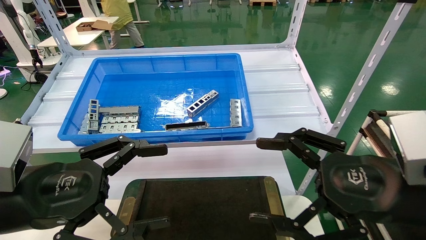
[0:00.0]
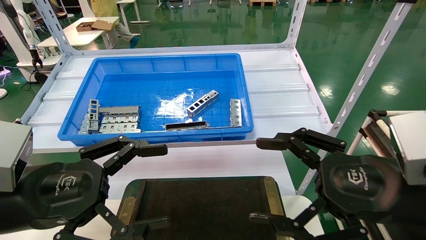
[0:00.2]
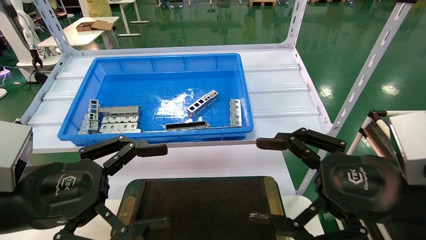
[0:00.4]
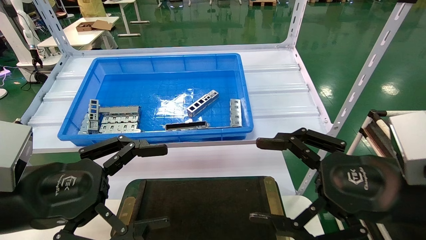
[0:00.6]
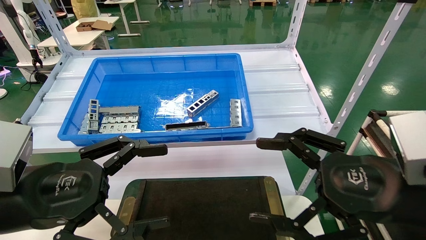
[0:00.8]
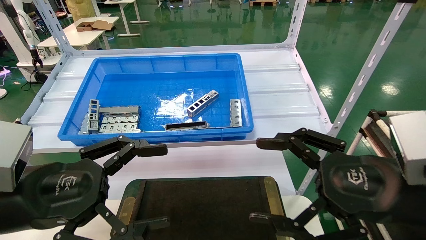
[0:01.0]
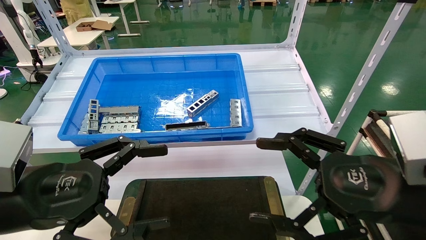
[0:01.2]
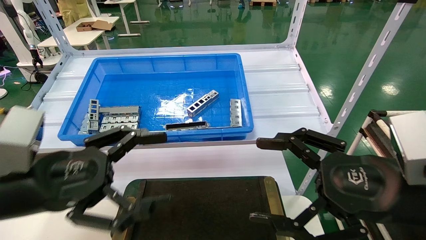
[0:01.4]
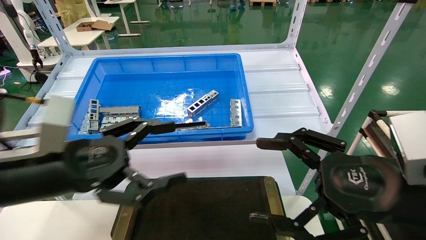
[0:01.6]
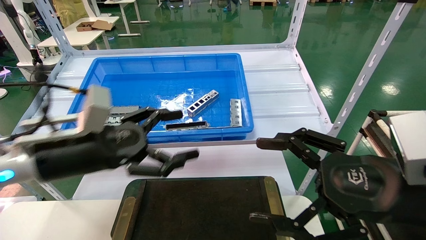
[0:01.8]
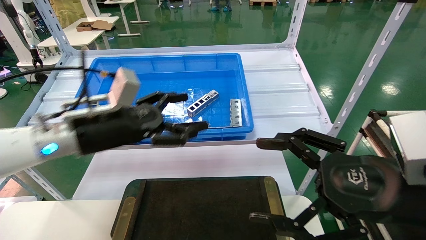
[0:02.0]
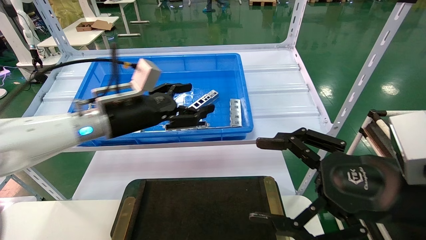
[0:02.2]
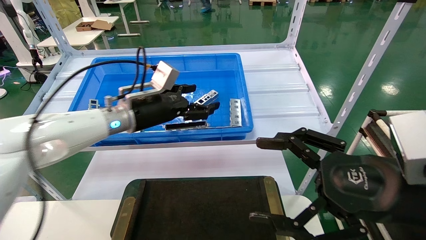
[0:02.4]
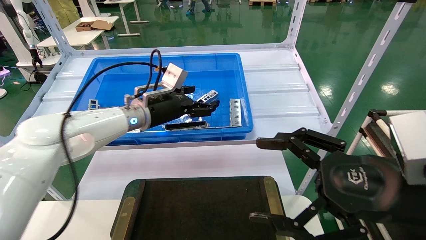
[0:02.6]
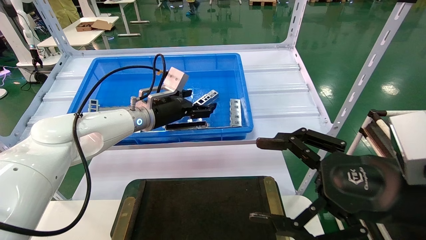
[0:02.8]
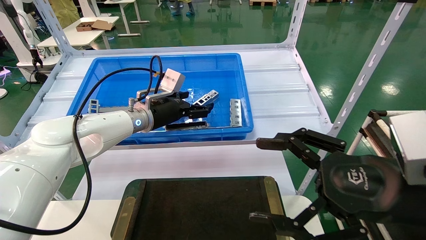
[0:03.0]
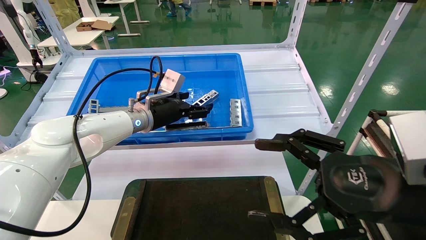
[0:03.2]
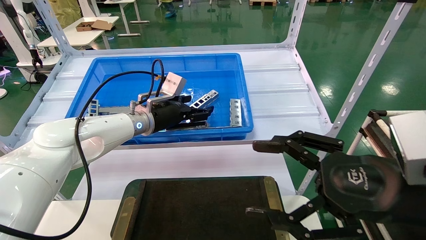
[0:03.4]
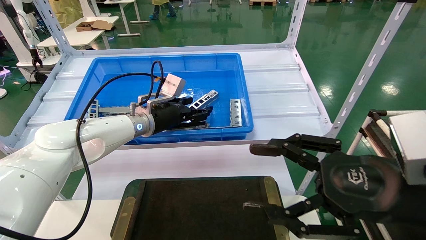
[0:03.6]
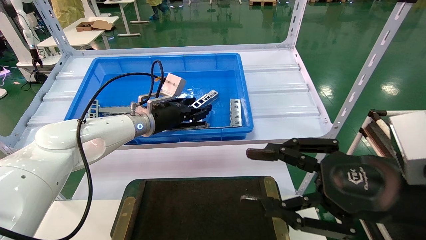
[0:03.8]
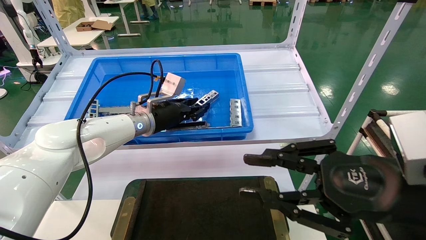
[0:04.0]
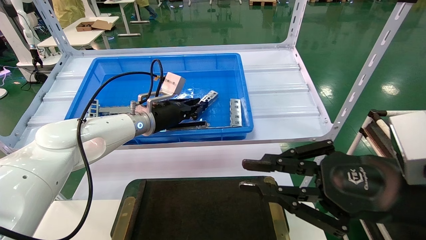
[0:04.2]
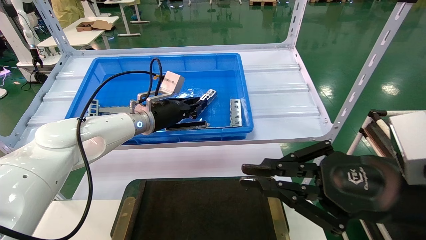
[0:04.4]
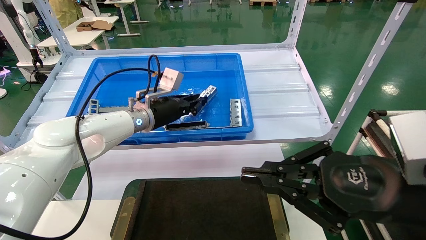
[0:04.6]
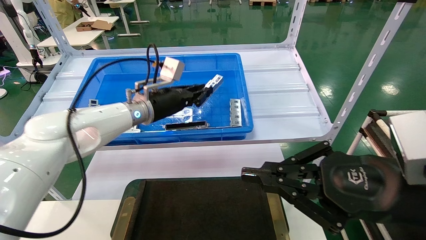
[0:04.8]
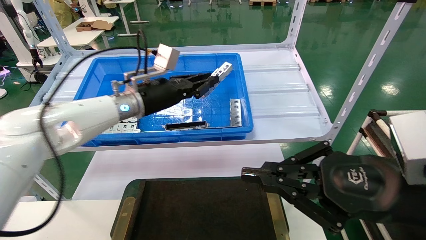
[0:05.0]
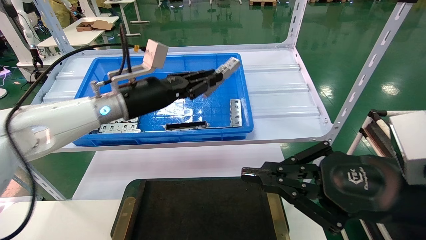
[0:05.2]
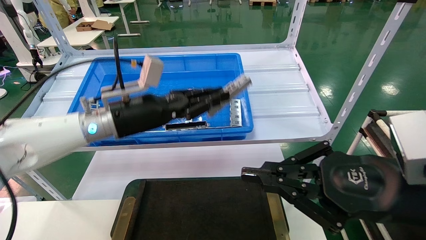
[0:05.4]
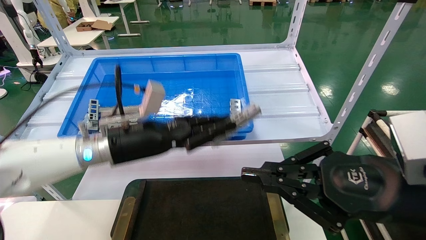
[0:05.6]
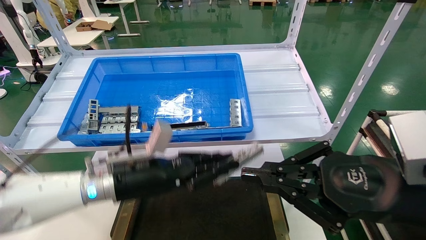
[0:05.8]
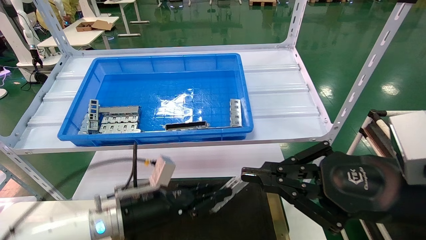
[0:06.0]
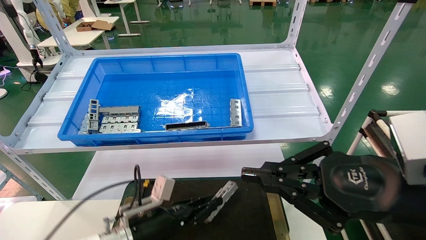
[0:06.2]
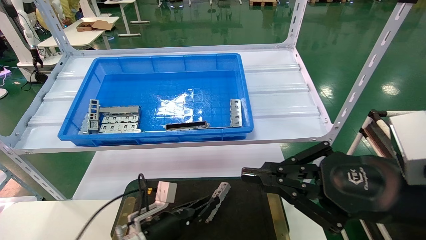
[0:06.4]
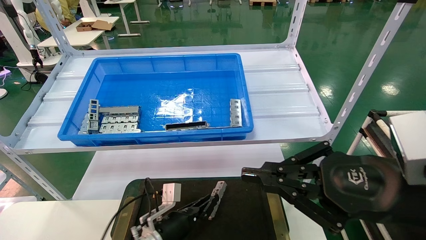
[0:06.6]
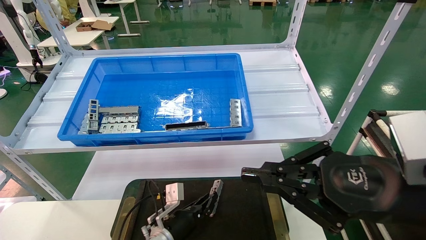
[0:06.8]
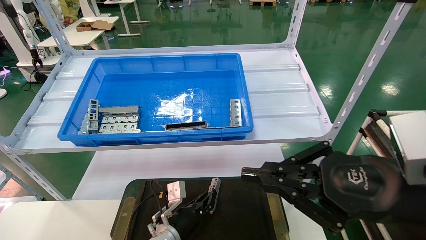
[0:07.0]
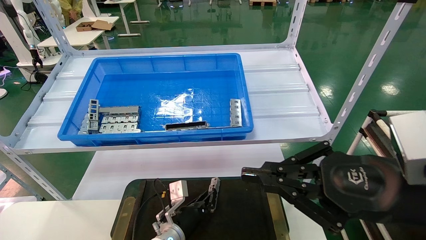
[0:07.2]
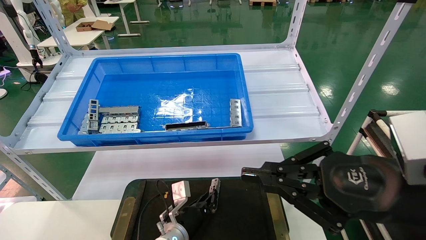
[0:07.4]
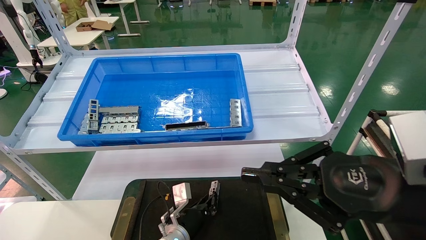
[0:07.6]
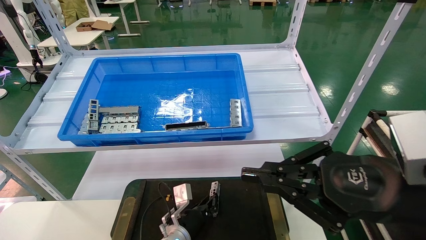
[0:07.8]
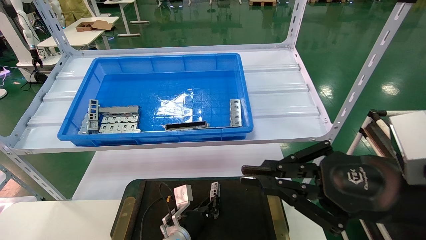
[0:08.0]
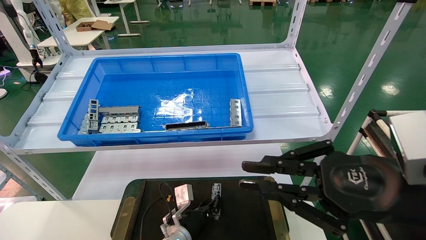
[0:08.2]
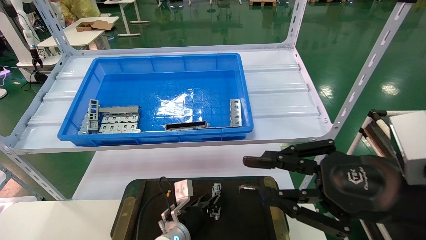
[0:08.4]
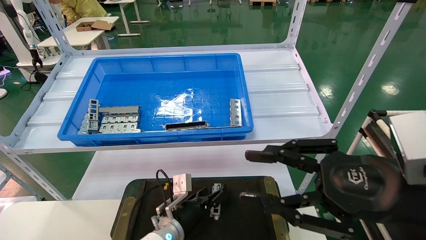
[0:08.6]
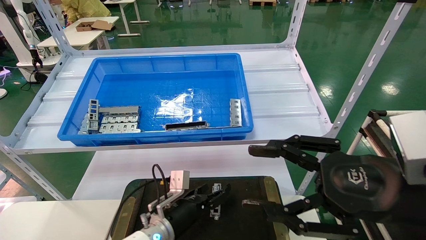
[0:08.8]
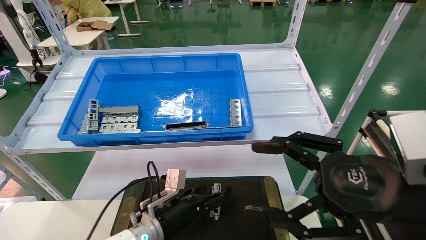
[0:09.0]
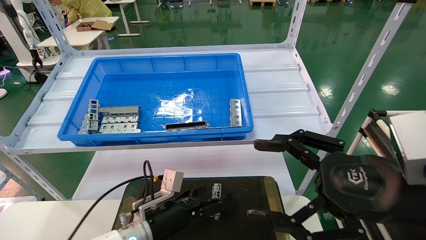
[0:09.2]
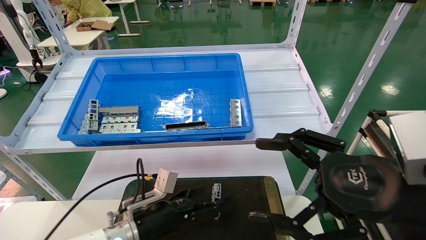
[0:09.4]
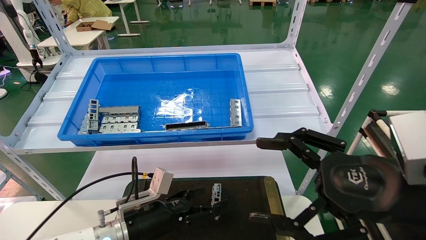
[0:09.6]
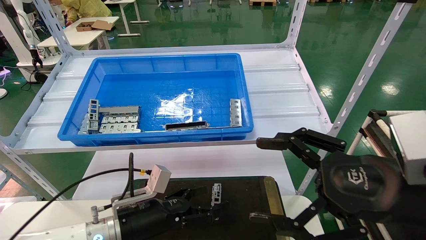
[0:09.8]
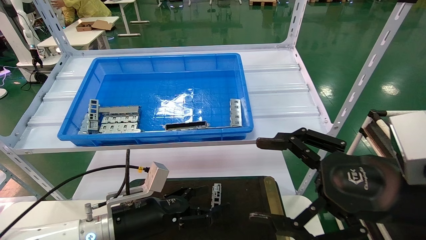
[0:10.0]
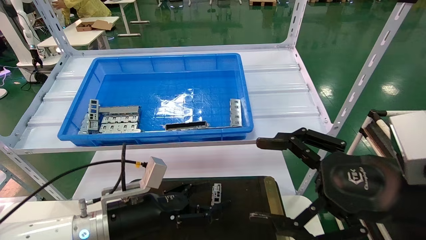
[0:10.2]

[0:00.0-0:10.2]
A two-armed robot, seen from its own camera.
Task of the whole recording: Grasp the part with one hand and place it on the black container.
Step, 0:01.6 to 0:04.8: Pick up the front USB bracket from the feeding area.
Step, 0:05.0 to 0:08.6: Place the front USB bracket into the box.
0:00.0 to 0:01.4: There are only small adjustments of the grippers.
0:01.4 to 0:03.0: The left gripper travels forward by some 25 cm.
0:03.0 to 0:04.4: The right gripper closes. Meanwhile the left gripper closes.
0:04.4 to 0:05.8: The left gripper is displaced backward and downward by about 15 cm.
0:05.8 to 0:07.2: The left gripper is displaced downward and to the right by roughly 20 cm.
0:07.2 to 0:08.8: The left gripper is displaced upward by about 5 cm, and opens. The right gripper opens.
0:08.8 to 0:10.2: The left gripper travels upward, to the left and backward by approximately 15 cm, and opens its fingers. The right gripper opens its fingers.

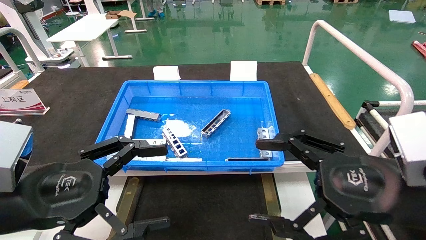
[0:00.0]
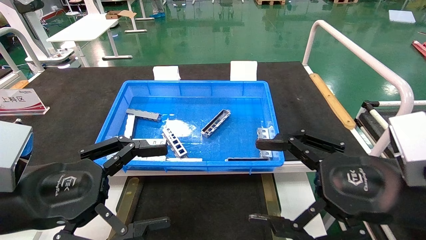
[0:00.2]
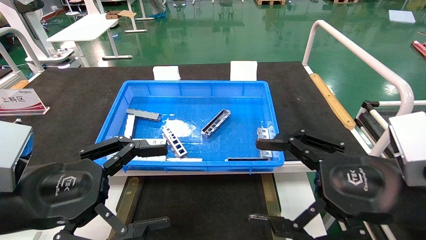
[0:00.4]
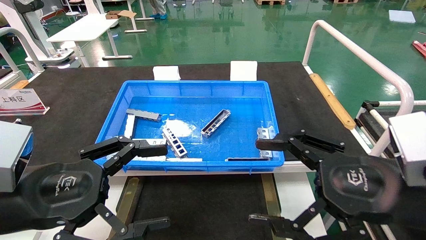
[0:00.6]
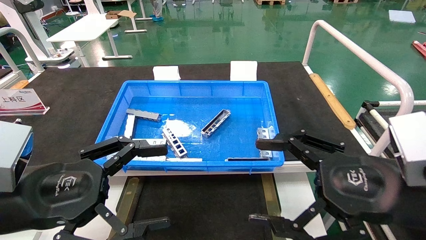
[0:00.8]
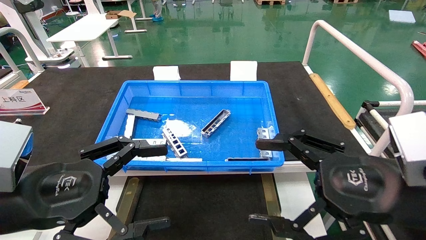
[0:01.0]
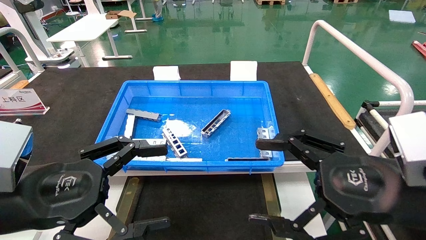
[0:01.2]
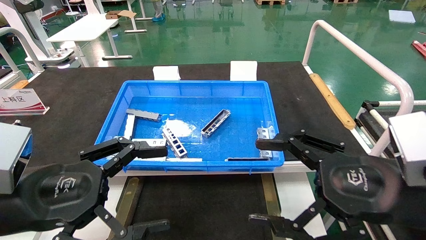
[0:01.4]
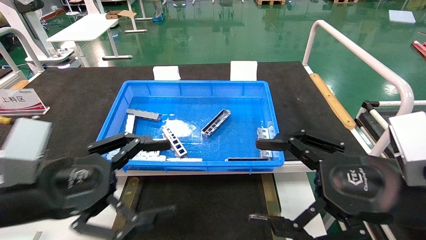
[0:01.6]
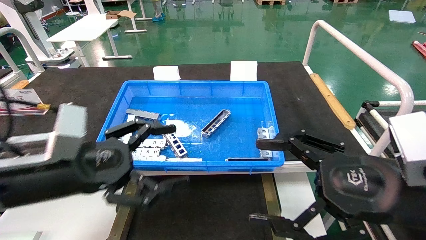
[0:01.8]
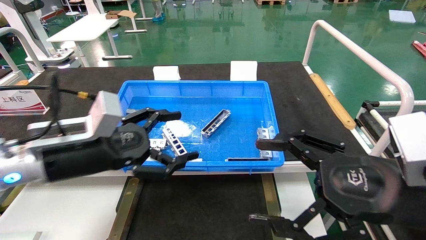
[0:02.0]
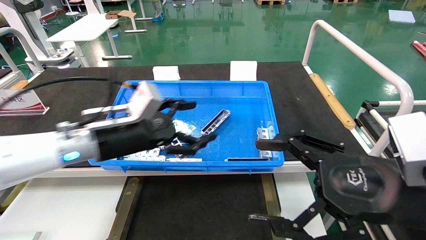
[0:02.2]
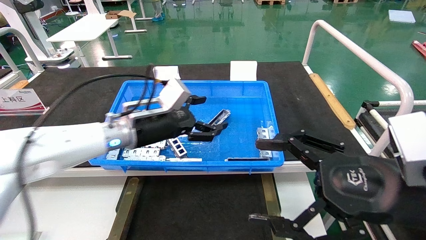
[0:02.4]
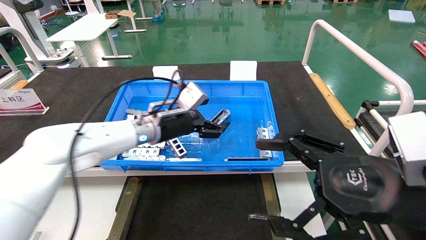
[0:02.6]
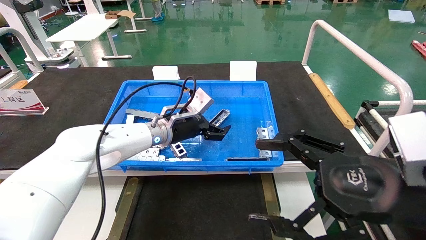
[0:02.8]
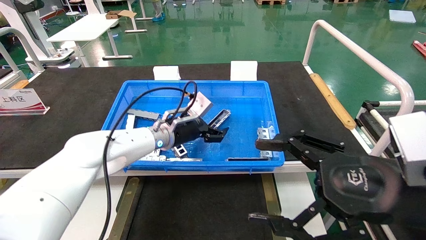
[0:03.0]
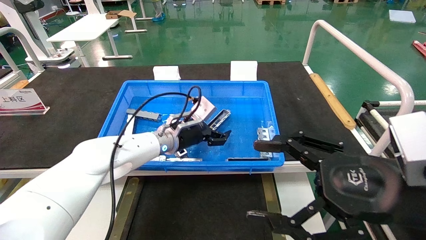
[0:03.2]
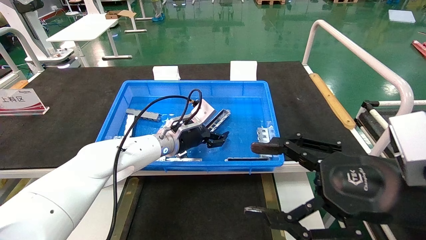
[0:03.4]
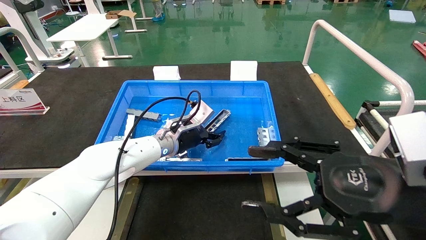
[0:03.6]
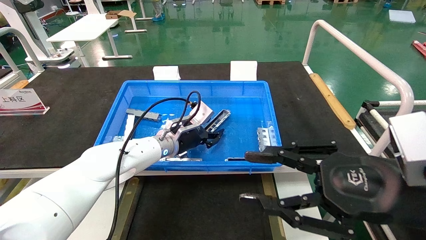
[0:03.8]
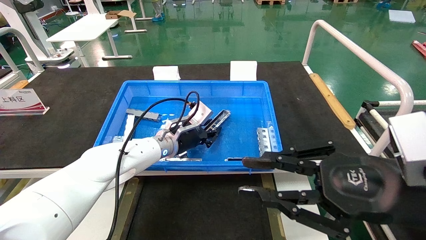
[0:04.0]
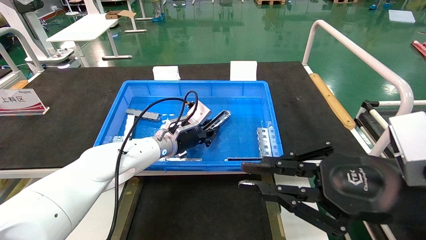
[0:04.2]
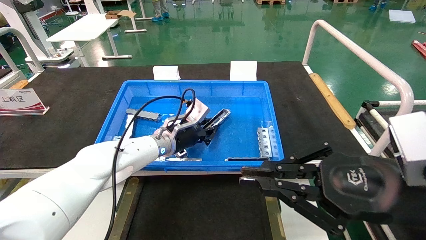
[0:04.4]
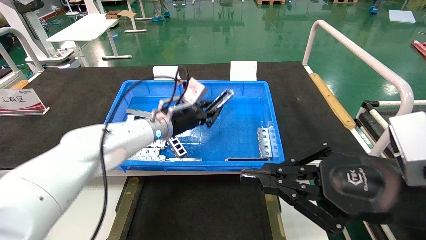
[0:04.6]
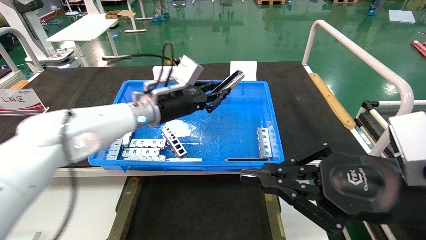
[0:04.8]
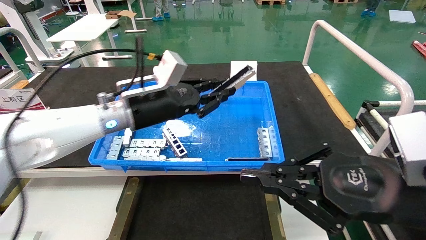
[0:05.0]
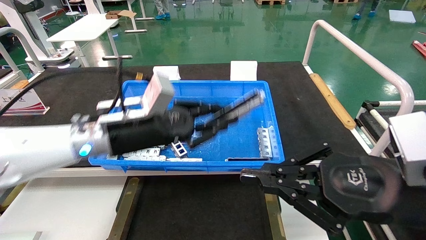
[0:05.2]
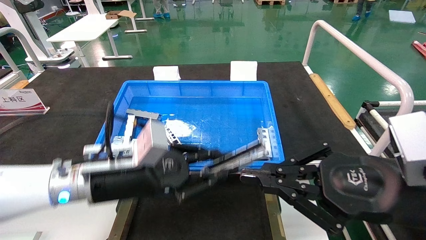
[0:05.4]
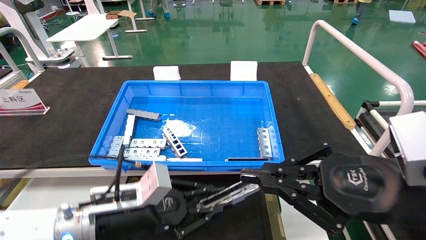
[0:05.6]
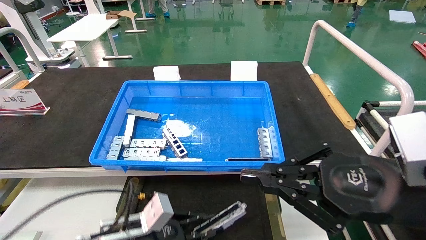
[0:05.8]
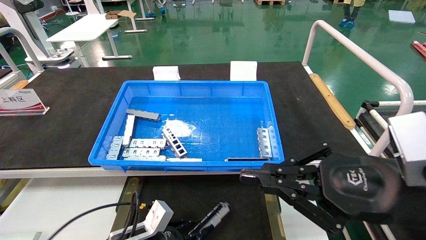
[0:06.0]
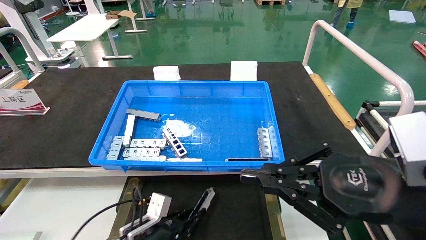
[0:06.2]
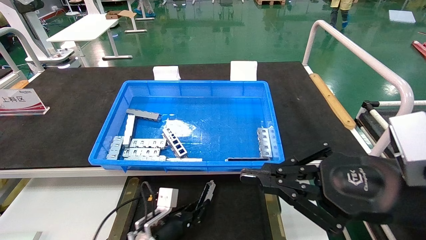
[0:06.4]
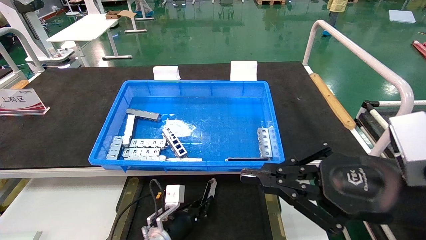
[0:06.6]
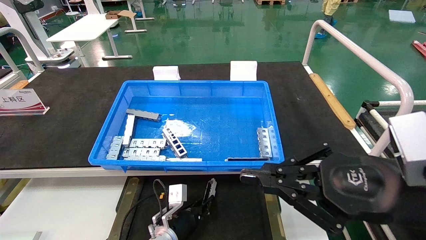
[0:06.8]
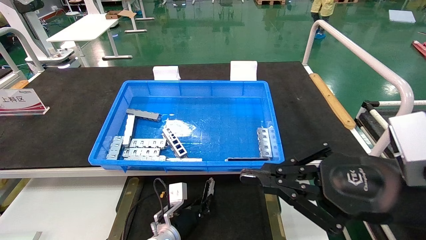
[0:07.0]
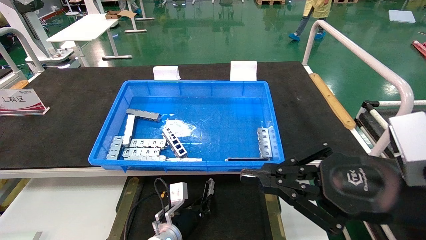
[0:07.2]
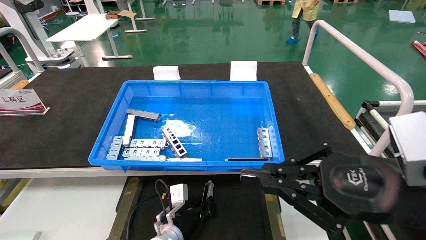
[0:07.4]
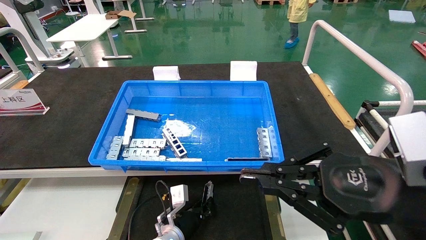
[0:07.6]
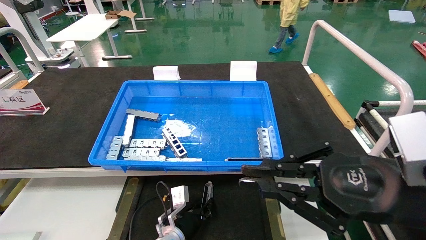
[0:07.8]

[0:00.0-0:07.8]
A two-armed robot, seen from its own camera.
Task of the whole recording: Grasp the part with one hand and place it on the black container.
Step, 0:01.8 to 0:04.2: Pick up the front USB bracket from the feeding area.
0:00.0 to 0:01.6: There are only small adjustments of the grippers.
0:01.6 to 0:03.2: The left gripper travels forward and to the right by roughly 30 cm.
0:03.2 to 0:04.6: The left gripper closes its fingers, while the right gripper closes up.
0:04.6 to 0:06.2: The left gripper travels downward and backward by some 30 cm.
0:06.2 to 0:07.8: The left gripper moves to the right and forward, about 10 cm.
